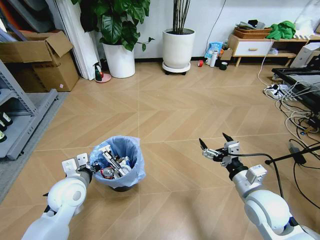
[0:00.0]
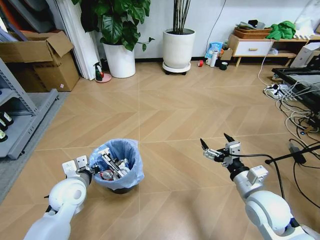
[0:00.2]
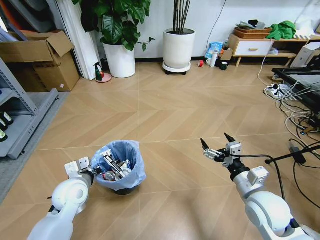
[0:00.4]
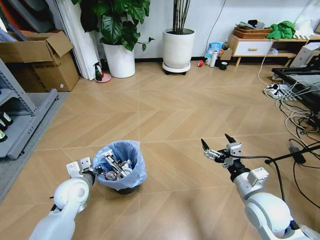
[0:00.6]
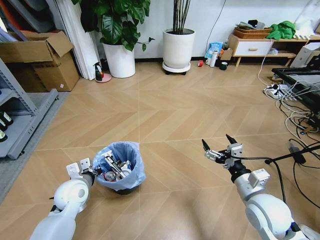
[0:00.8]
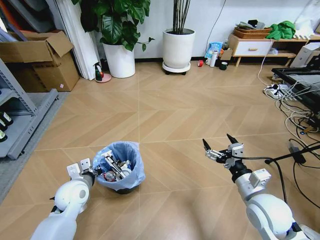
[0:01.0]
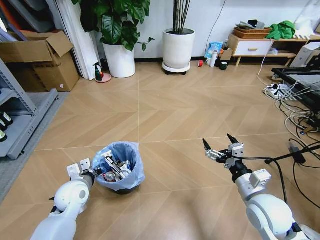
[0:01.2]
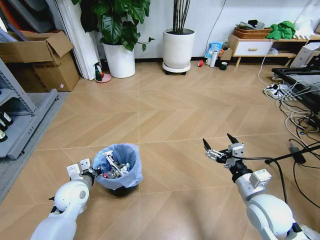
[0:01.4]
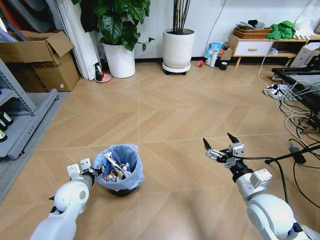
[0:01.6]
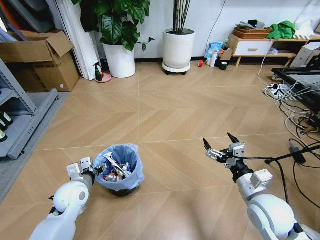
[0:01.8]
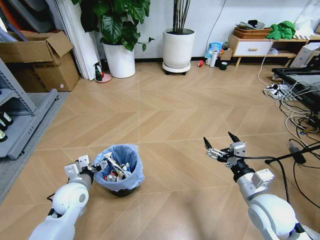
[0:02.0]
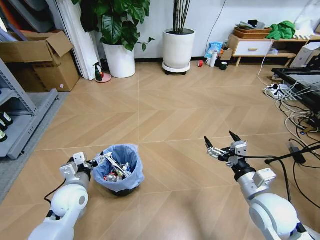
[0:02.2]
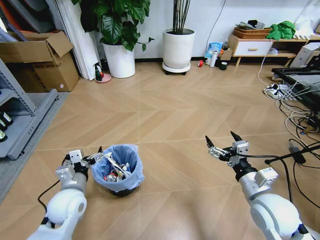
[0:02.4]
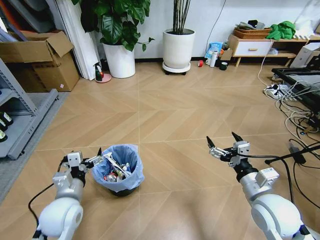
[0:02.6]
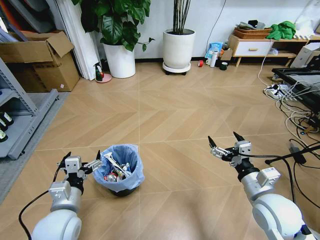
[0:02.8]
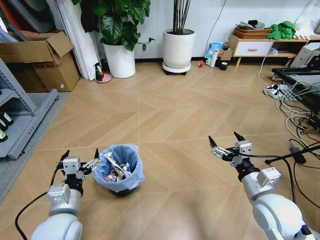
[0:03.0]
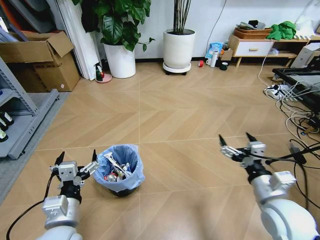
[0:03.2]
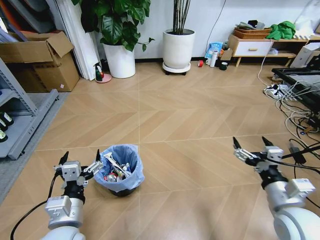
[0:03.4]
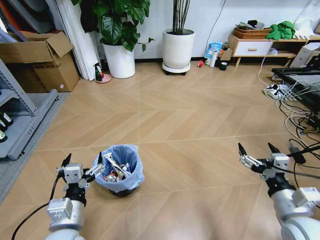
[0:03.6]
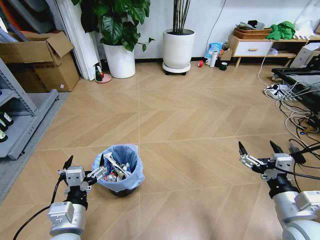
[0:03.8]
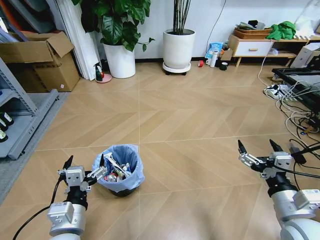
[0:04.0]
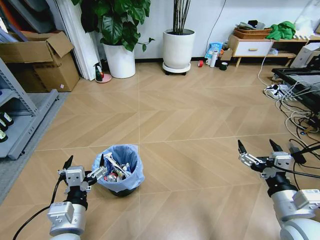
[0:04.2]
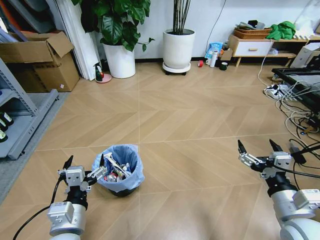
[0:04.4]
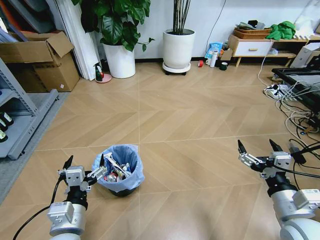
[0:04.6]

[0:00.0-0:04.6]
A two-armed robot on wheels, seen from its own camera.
Task of the whole recording: Pick up the trash bin and place the garbage on the floor into it.
0:00.0 to 0:01.6: The left gripper travels downward by approximately 5 cm, and opens up.
0:01.6 to 0:03.0: The left gripper travels backward and upward by approximately 15 cm, and opens its fingers.
0:03.0 to 0:04.6: The right gripper moves backward, some 5 cm. The left gripper ends up roughly 5 cm from where it was.
